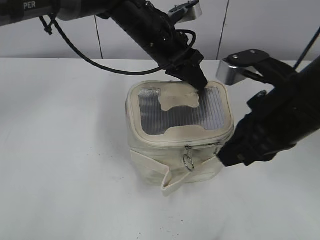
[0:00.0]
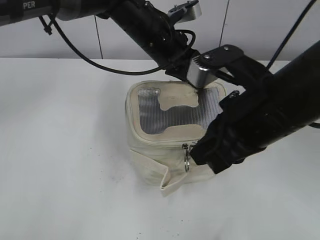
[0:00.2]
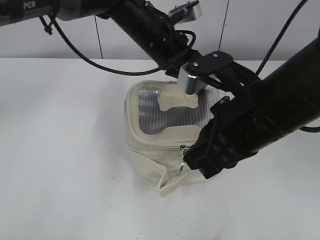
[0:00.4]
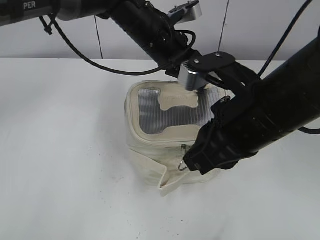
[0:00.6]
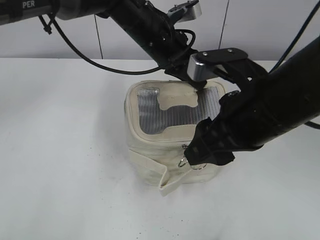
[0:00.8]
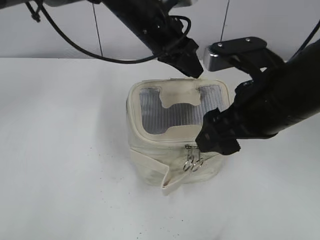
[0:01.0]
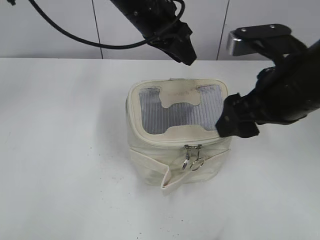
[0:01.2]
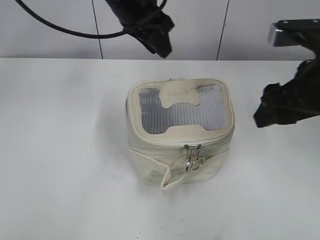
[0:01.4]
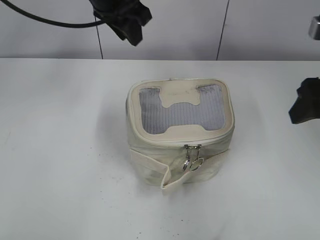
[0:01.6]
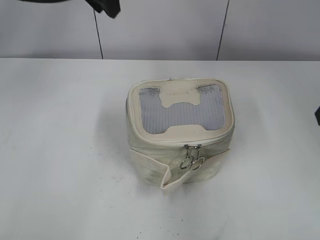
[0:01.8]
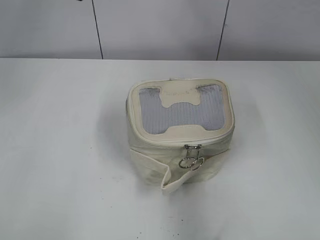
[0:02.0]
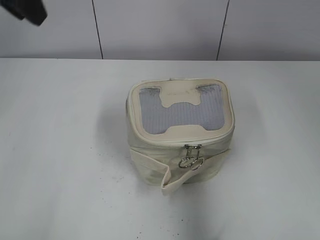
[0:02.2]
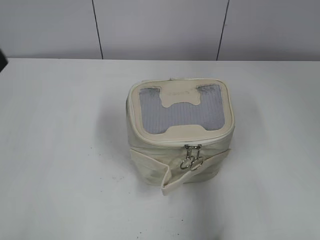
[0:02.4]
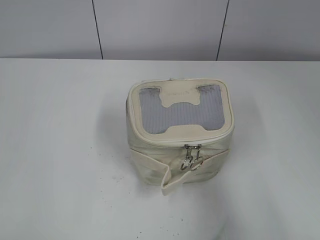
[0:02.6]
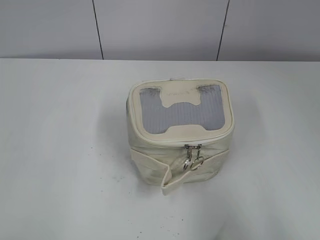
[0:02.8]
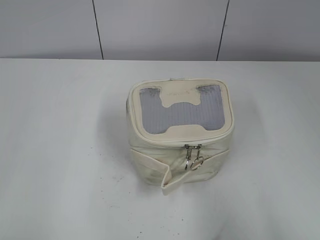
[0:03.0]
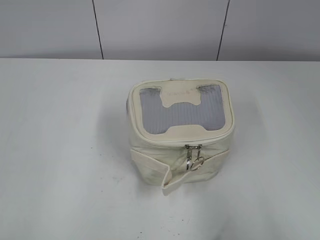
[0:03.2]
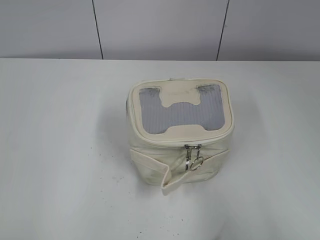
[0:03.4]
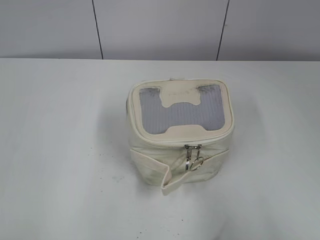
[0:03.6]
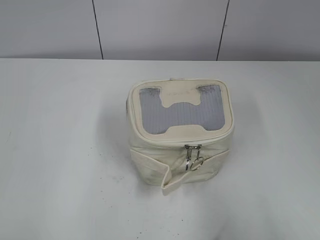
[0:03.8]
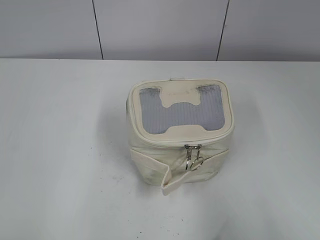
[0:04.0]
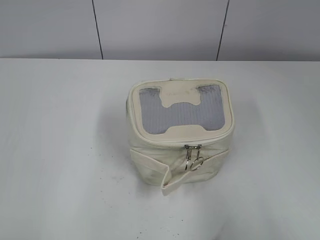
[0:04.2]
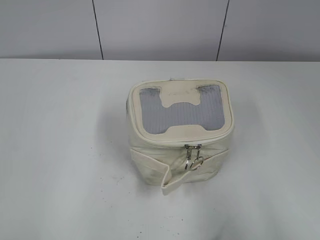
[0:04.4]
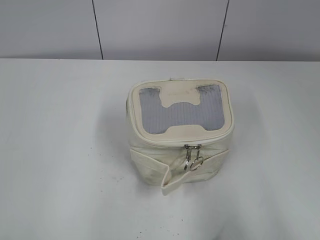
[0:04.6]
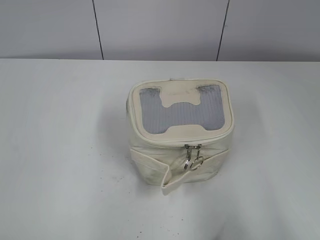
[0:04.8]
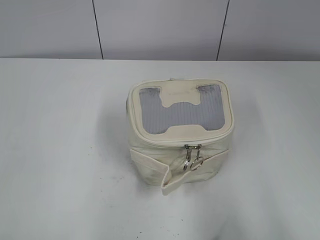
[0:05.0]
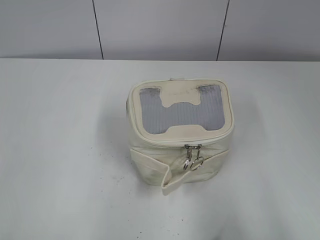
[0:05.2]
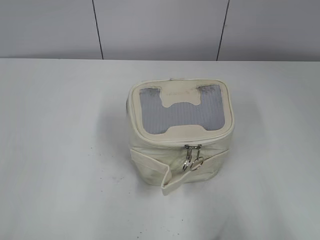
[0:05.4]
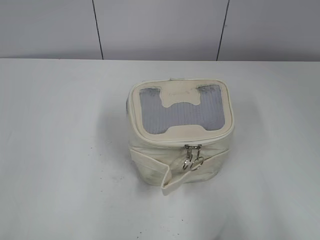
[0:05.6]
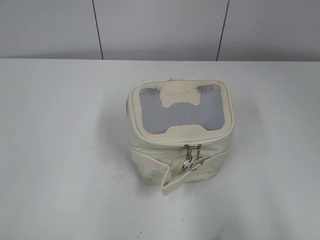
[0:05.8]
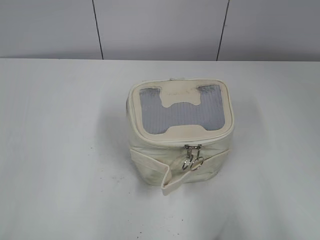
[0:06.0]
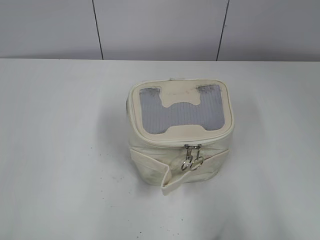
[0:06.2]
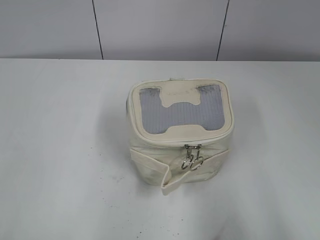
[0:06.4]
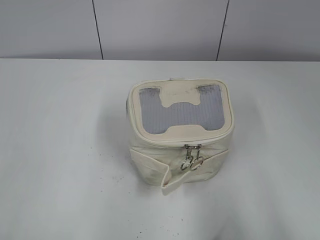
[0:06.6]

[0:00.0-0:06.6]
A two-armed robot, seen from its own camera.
0:00.0 to 0:01.6: The right gripper heads to the right, covering approximately 5 cm, and opens up; the left gripper is displaced upward and to the left by roughly 10 cm, and opens up.
0:01.6 to 0:03.2: The right gripper is displaced backward by some 25 cm; the left gripper heads backward and to the left, covering some 50 cm.
0:05.0 to 0:06.6: Both grippers stay about where they are.

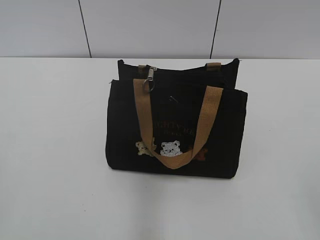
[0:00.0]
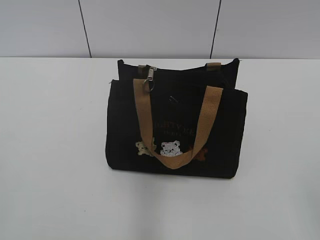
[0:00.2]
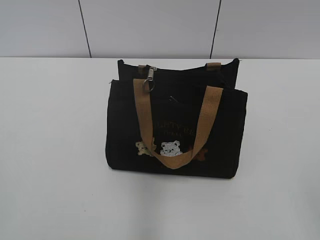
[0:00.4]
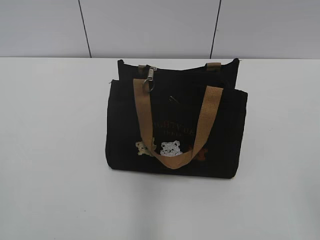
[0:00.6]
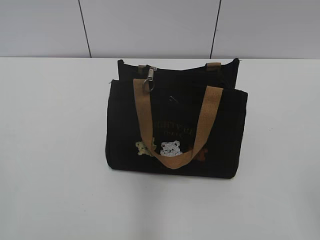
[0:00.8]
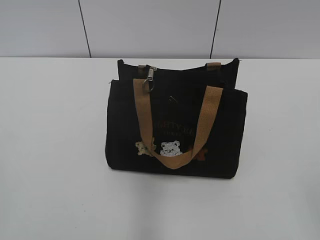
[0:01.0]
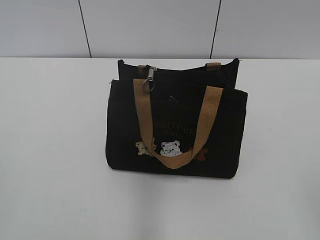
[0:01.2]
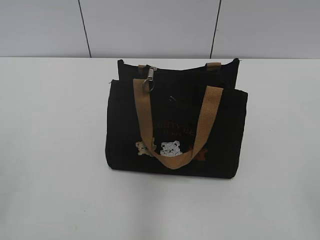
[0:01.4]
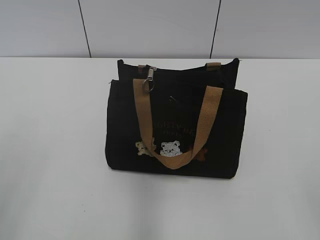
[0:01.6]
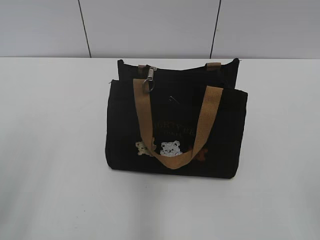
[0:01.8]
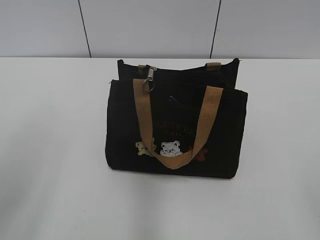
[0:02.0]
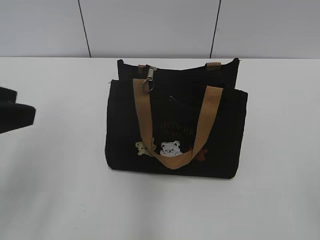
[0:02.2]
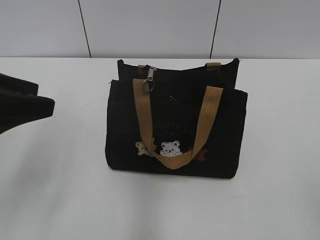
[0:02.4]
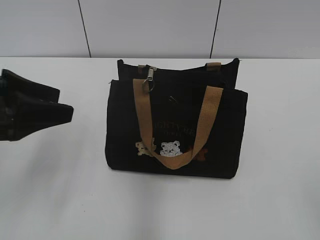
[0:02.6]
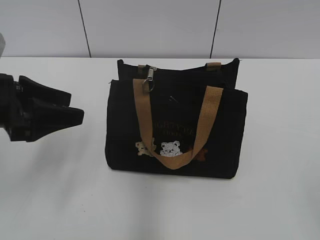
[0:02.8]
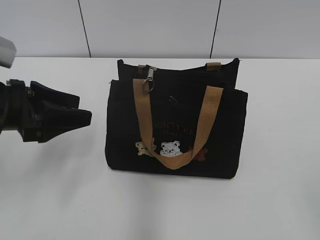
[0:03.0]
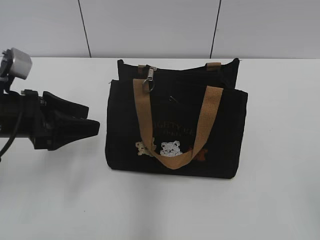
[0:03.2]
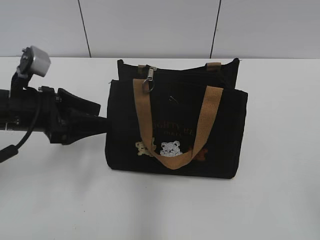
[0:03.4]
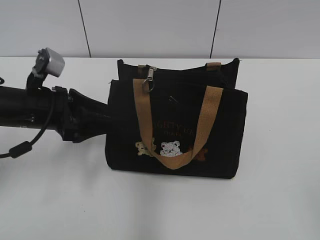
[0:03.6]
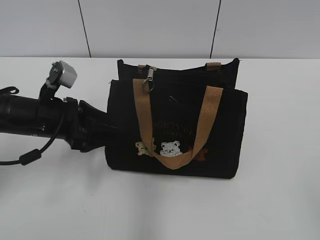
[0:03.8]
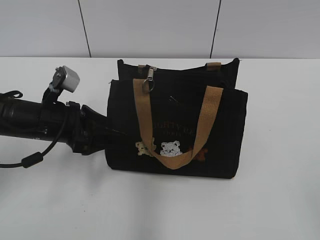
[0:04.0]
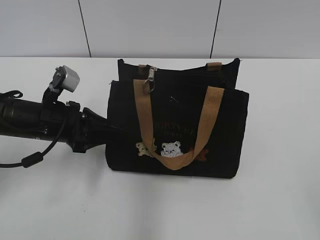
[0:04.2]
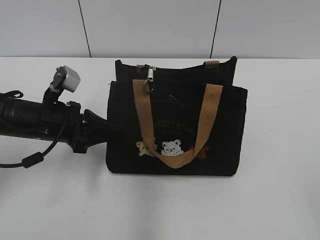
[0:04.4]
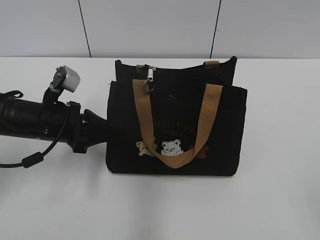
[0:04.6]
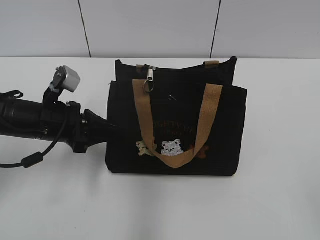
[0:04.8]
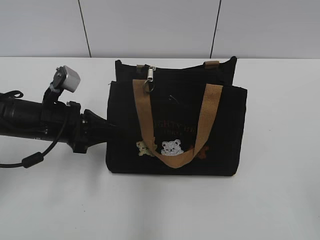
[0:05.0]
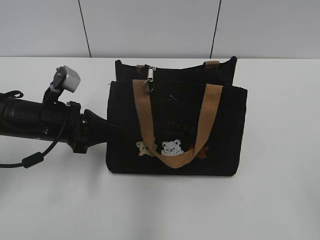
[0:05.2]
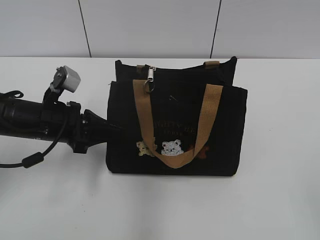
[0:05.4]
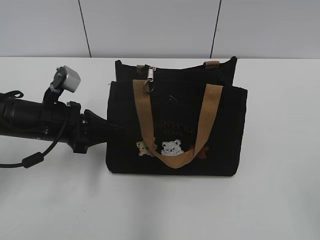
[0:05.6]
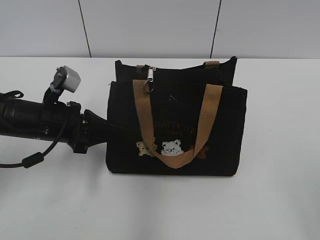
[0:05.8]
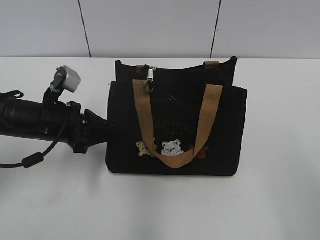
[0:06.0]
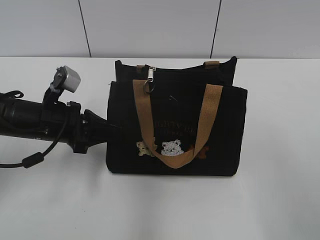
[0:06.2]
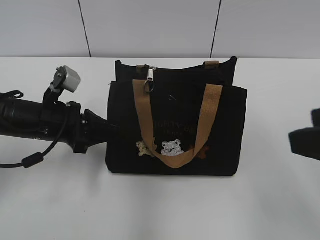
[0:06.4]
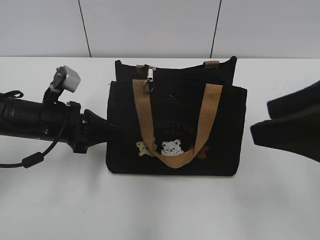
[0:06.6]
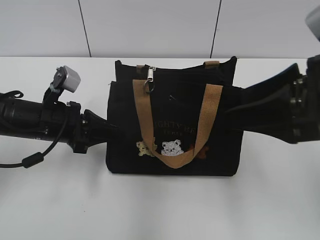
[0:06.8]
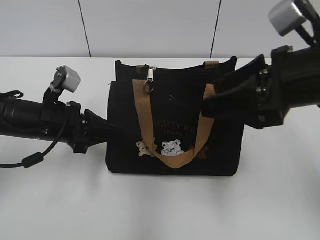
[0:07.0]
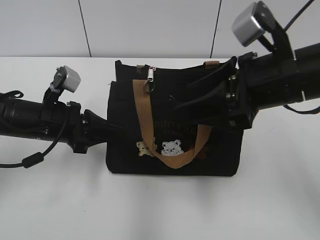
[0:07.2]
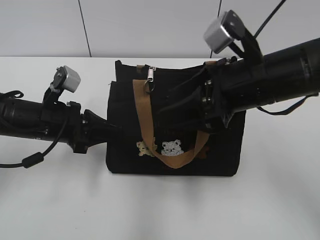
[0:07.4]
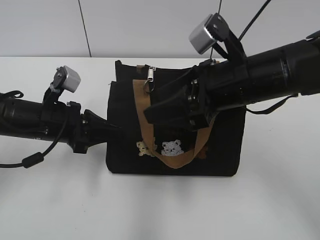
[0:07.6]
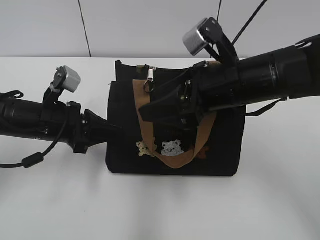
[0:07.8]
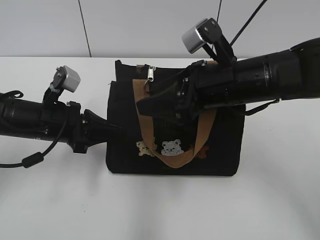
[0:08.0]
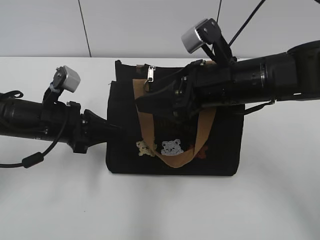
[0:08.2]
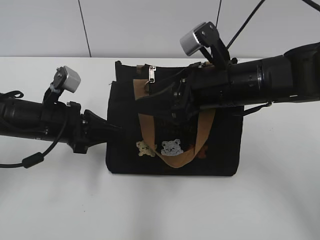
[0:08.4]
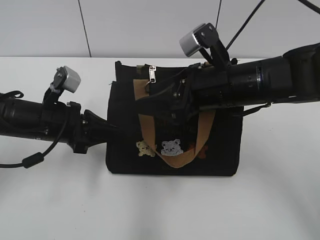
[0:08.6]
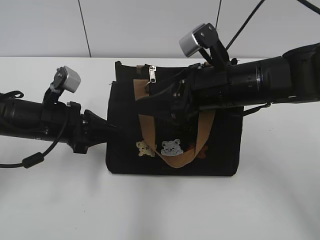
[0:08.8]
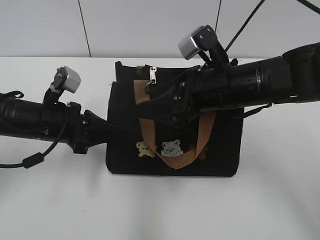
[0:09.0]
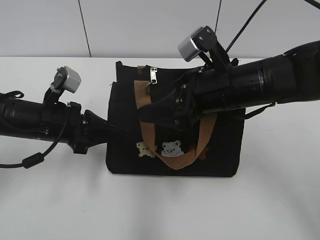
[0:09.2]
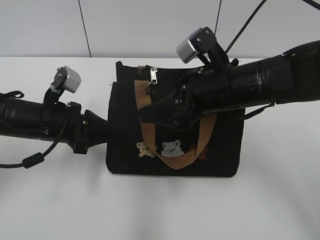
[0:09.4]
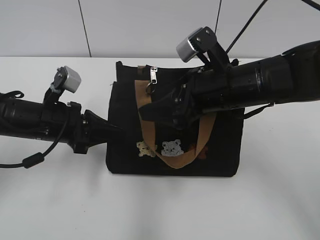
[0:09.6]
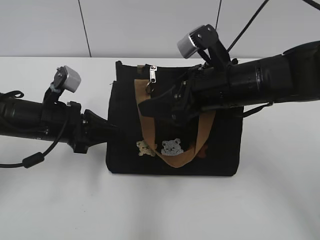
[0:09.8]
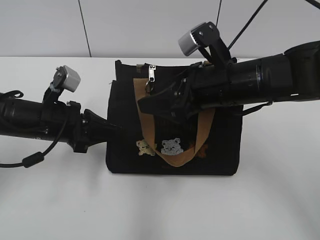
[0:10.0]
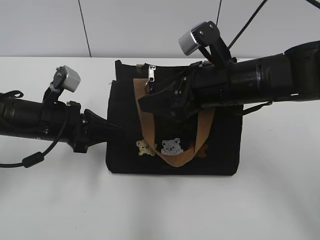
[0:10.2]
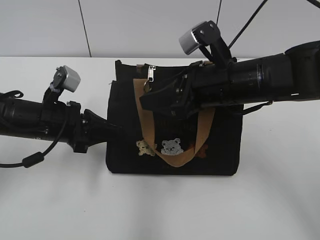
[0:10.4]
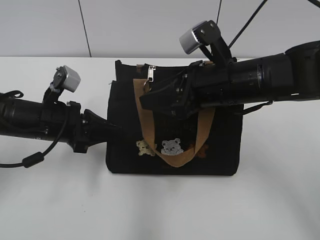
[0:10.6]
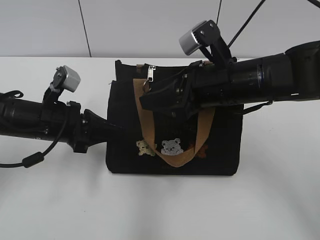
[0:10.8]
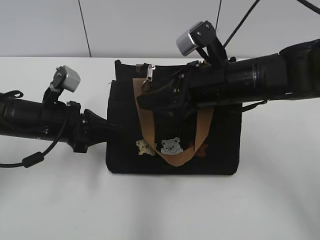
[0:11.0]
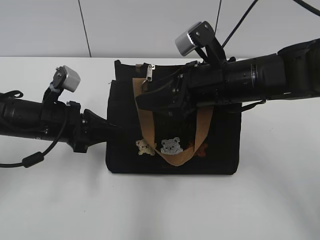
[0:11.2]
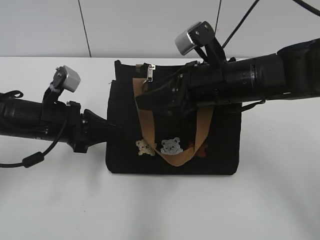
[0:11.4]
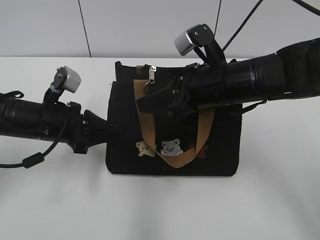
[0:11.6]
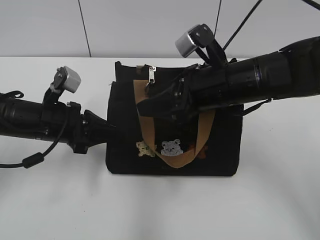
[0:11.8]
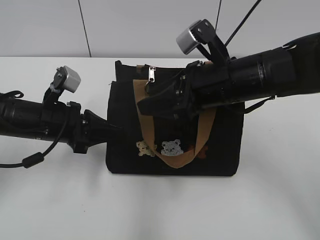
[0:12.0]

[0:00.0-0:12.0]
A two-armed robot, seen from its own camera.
0:01.6 to 0:03.0: The left gripper moves forward and downward, approximately 20 cm, and opens its fingers.
0:03.0 to 0:04.4: The left gripper moves downward, about 5 cm, and closes.
0:06.0 to 0:07.6: The right gripper shifts some 25 cm forward and to the left.
0:07.6 to 0:09.0: The grippers stay close to where they were, moving slightly.
0:09.0 to 0:10.4: Neither gripper changes place.
0:10.4 to 0:12.0: The grippers stay close to where they were, moving slightly.

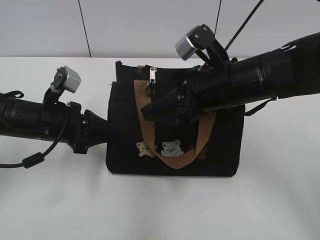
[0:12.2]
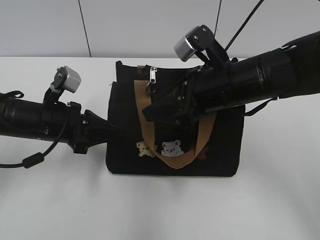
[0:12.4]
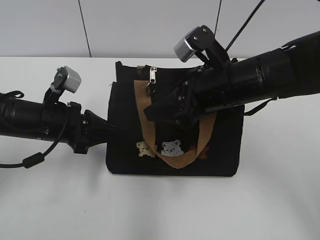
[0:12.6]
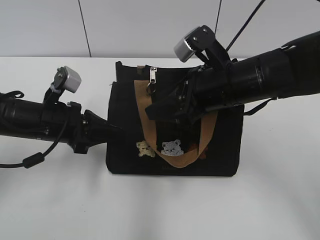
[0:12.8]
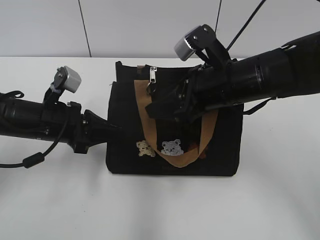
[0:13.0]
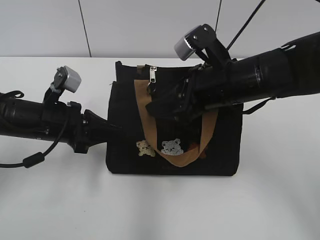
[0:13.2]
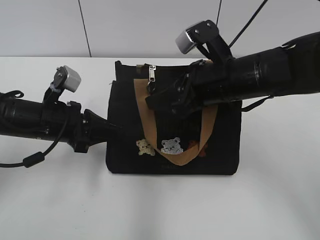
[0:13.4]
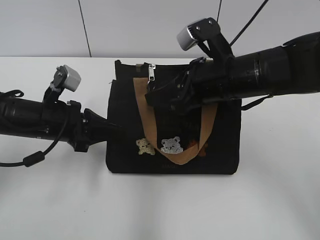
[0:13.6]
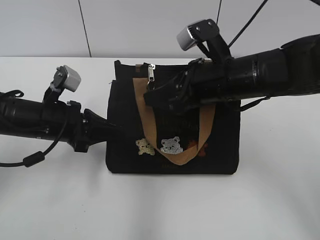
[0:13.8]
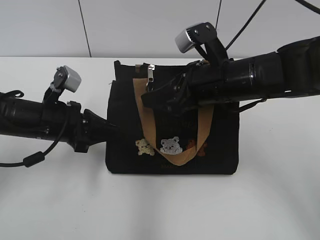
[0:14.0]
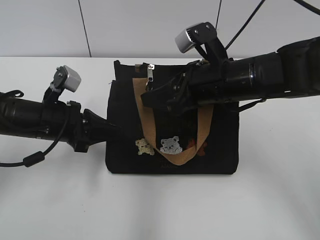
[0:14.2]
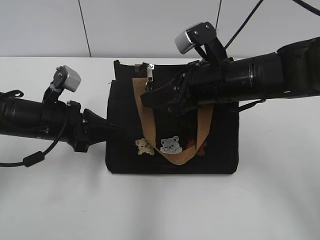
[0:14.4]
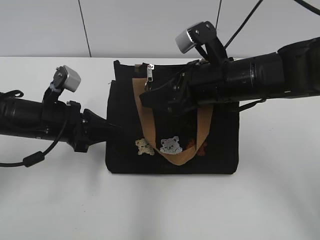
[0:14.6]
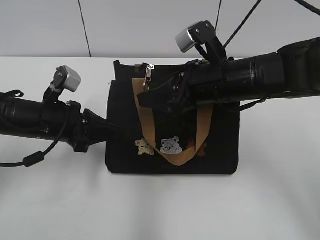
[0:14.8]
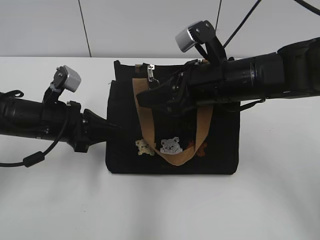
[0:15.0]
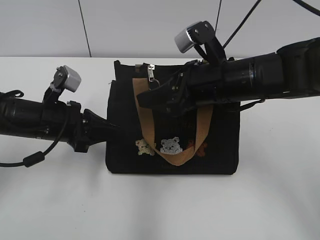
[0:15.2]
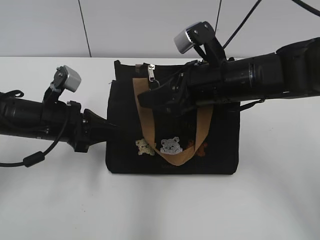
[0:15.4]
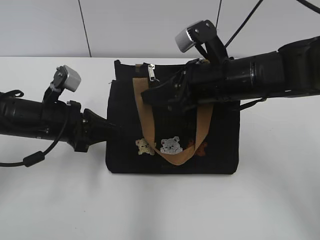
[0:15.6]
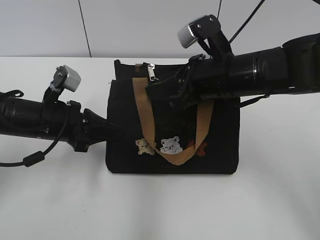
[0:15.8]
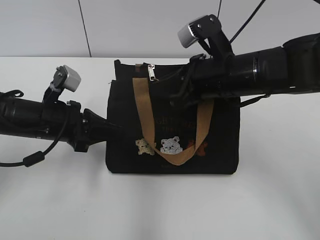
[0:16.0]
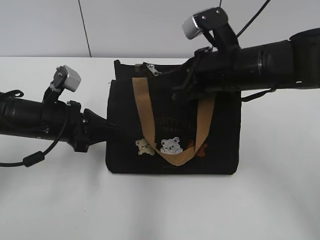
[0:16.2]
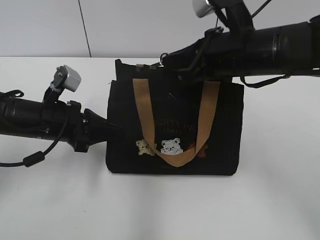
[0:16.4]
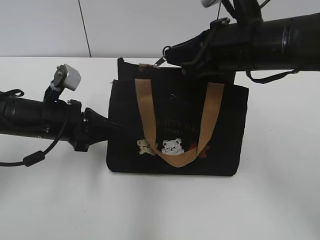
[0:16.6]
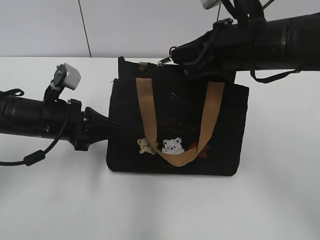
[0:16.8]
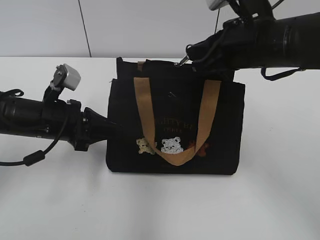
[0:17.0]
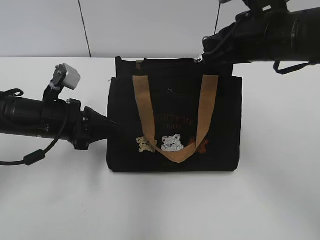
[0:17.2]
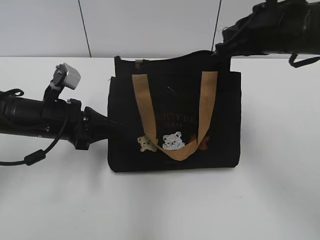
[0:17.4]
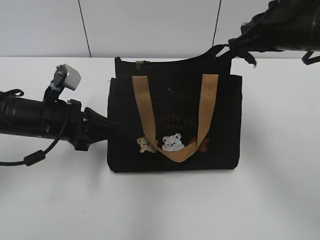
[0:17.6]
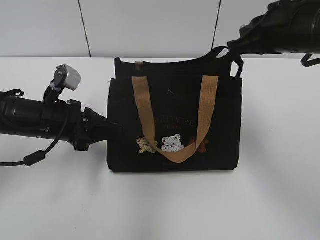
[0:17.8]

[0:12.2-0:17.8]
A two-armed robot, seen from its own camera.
0:12.2 to 0:15.0: The grippers make only small movements.
0:15.0 to 0:16.4: The right gripper closes up.
0:16.4 to 0:17.8: The right gripper is displaced to the right by roughly 5 cm.
